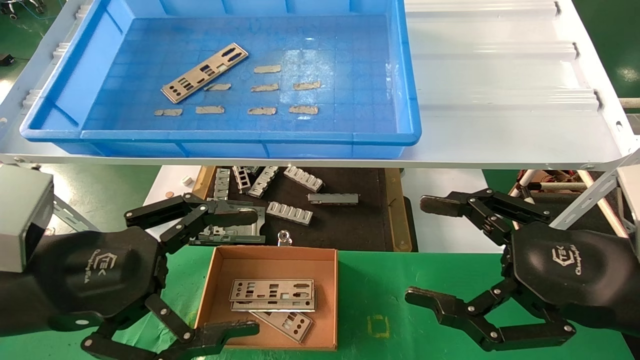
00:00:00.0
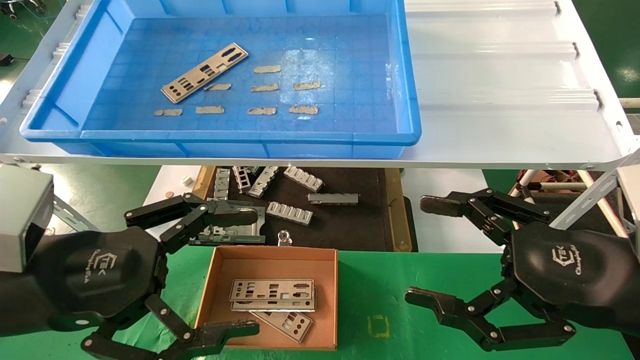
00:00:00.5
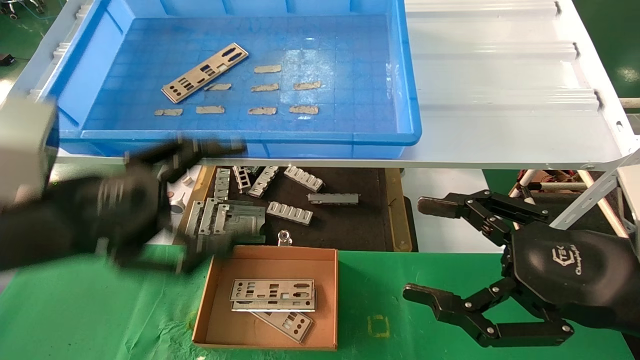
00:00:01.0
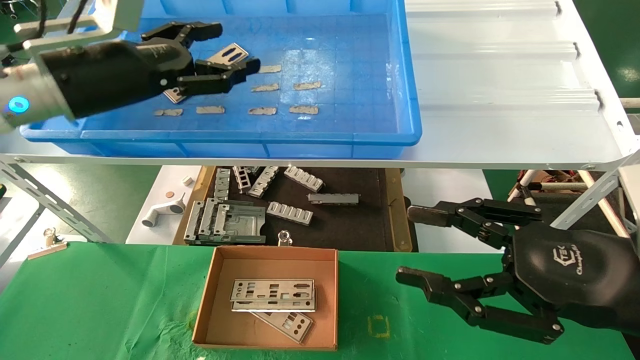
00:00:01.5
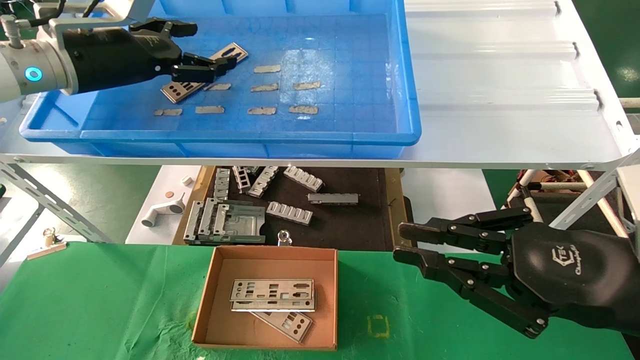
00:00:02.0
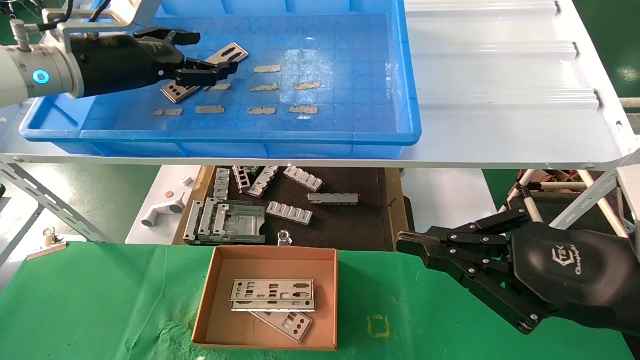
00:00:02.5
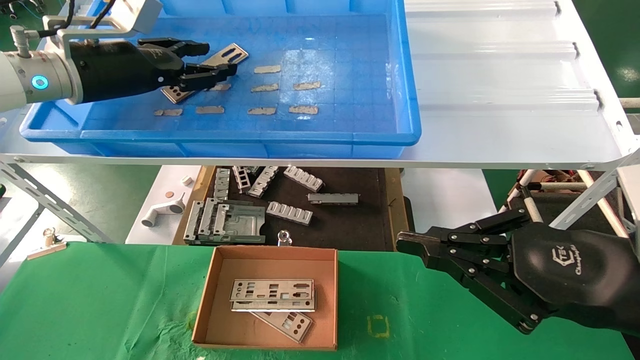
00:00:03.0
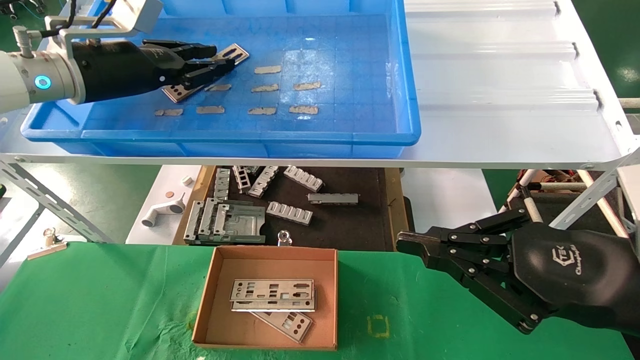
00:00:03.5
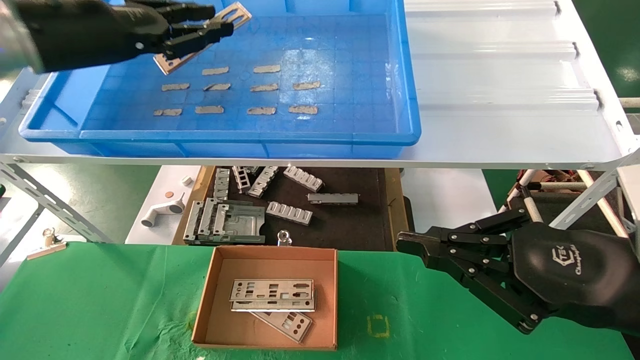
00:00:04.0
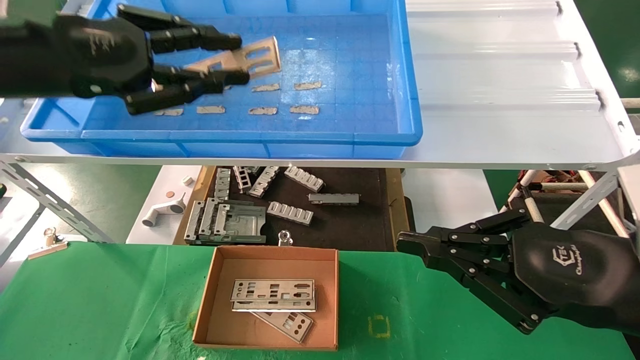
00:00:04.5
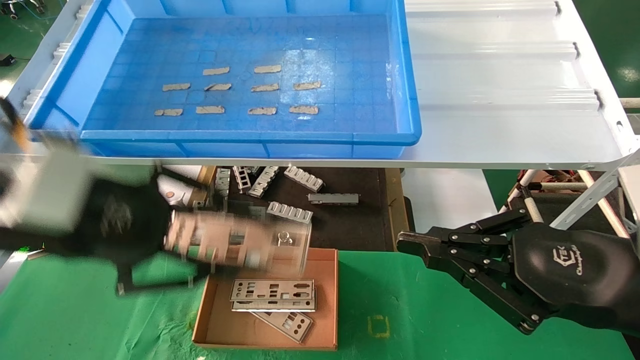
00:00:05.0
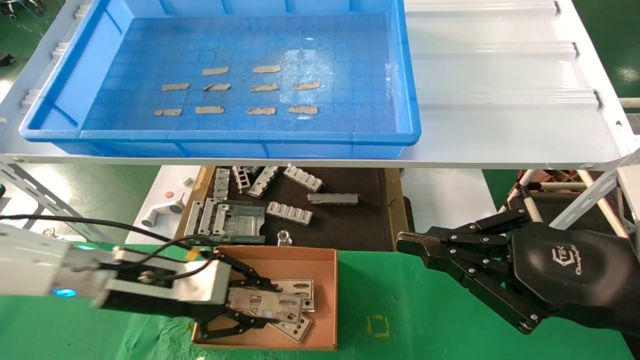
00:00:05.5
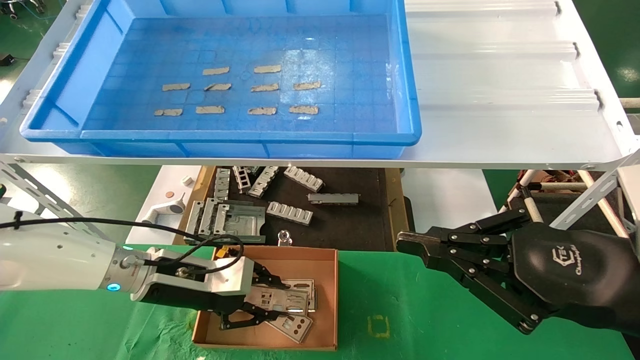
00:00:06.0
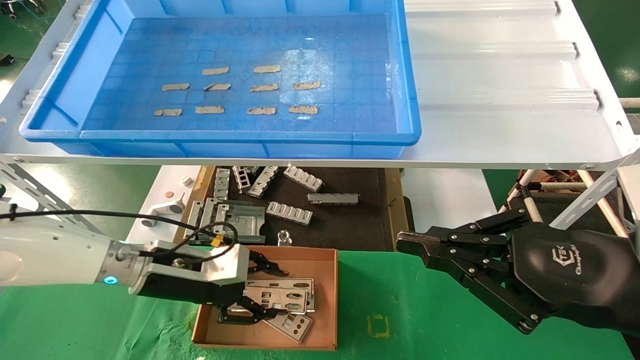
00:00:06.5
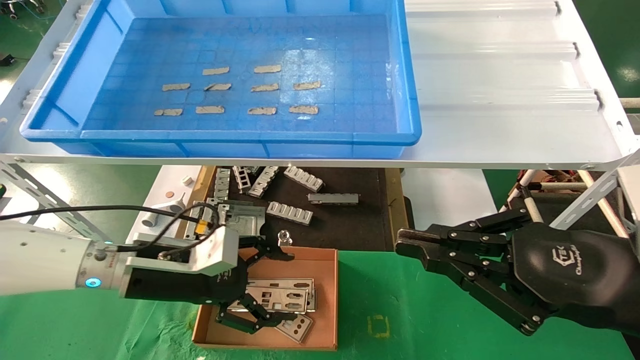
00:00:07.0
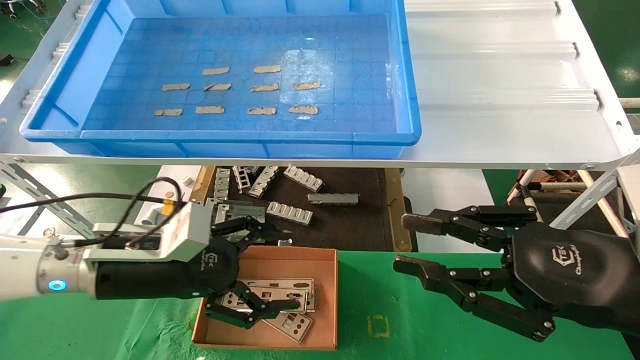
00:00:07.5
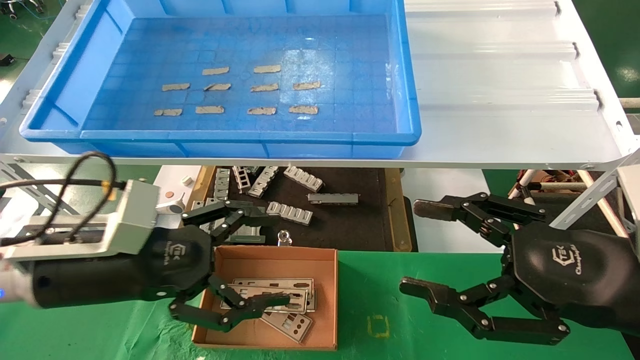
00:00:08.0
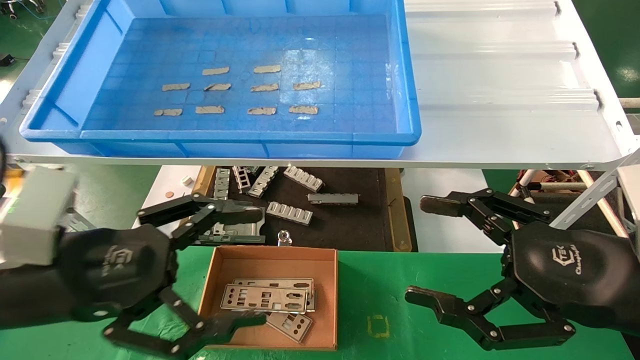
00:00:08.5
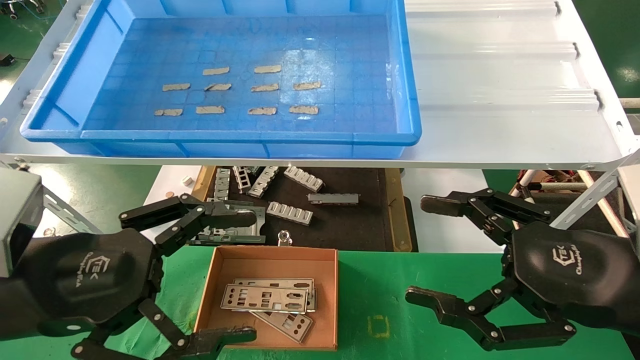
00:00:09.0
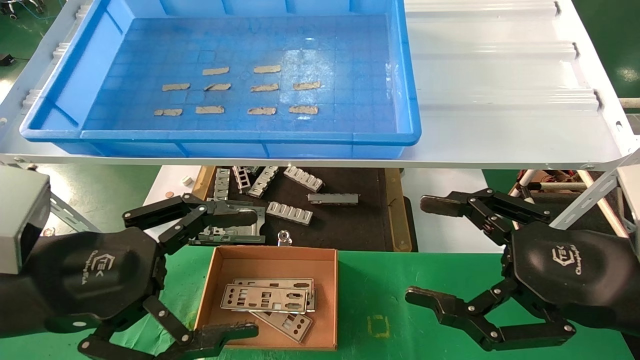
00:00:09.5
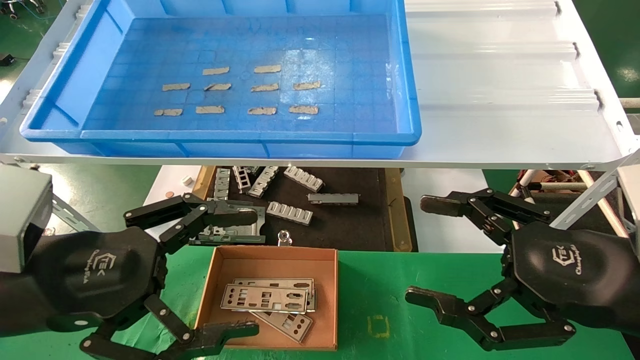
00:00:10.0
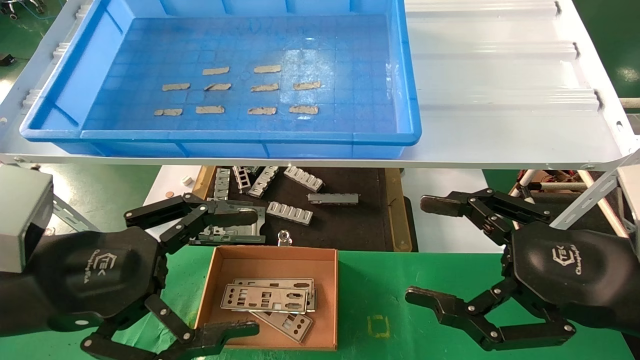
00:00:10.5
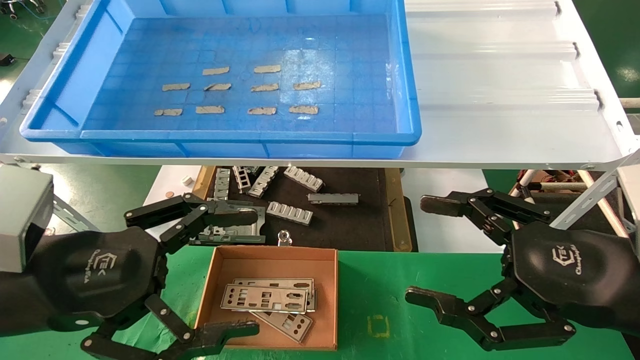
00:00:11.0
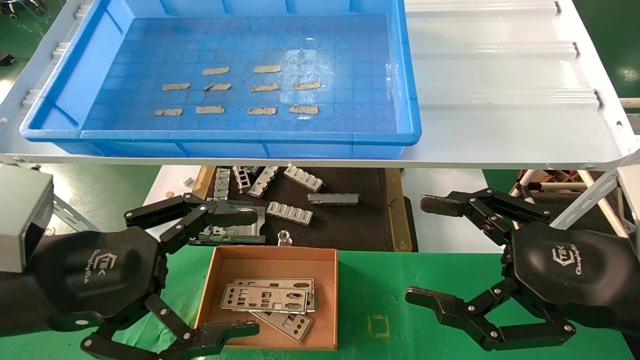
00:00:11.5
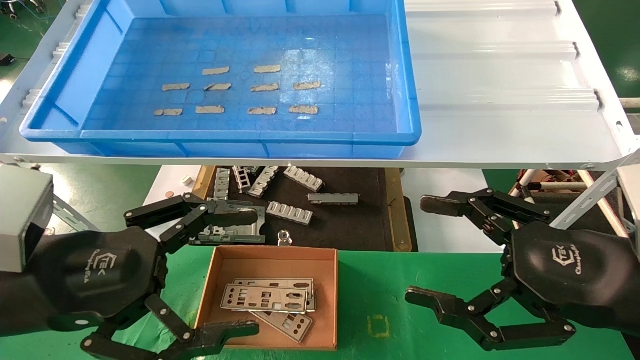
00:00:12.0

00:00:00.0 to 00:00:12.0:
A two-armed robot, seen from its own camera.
Task of the whole recording: pick up the parts on the tray and put them in the cardboard box.
Step, 00:00:01.5 to 00:00:03.5: Pick up the IO bracket from the container box.
Step, 00:00:04.0 to 00:00:06.0: Place the IO bracket into the ingredient slot.
00:00:00.0 to 00:00:02.0: The right gripper closes up. Meanwhile the left gripper is displaced forward and upward by some 25 cm.
00:00:02.0 to 00:00:04.0: The left gripper shifts by about 5 cm, and closes its fingers.
00:00:04.0 to 00:00:06.0: The left gripper travels downward by about 30 cm.
00:00:06.0 to 00:00:08.0: The left gripper is displaced backward and upward by some 15 cm, and opens. The right gripper opens.
00:00:08.0 to 00:00:10.0: The left gripper moves backward, some 5 cm.
00:00:10.0 to 00:00:12.0: Both grippers stay about where they are.

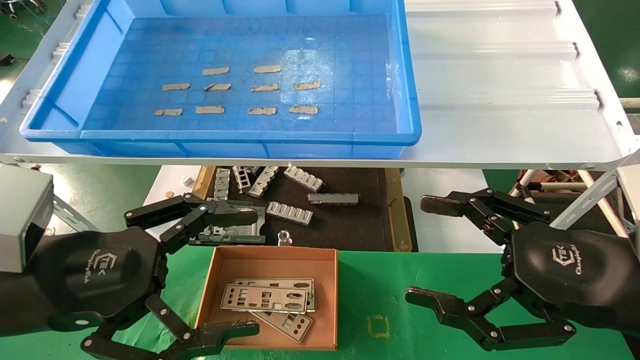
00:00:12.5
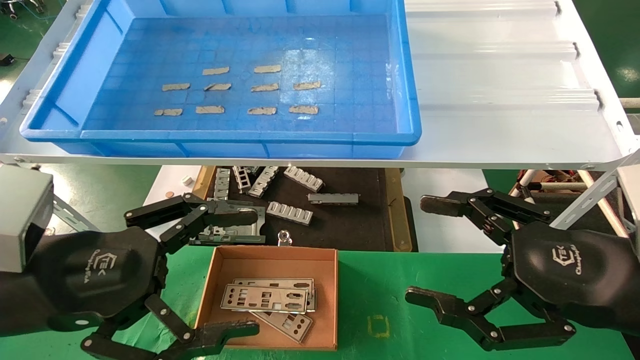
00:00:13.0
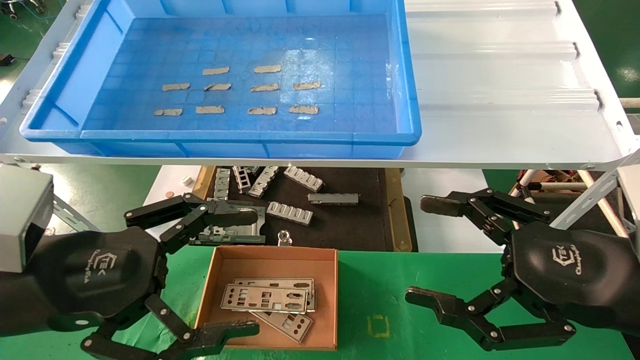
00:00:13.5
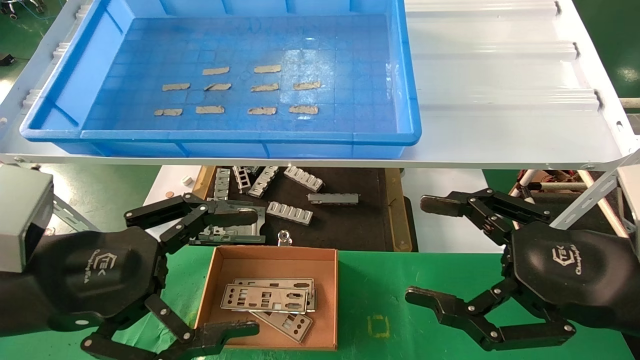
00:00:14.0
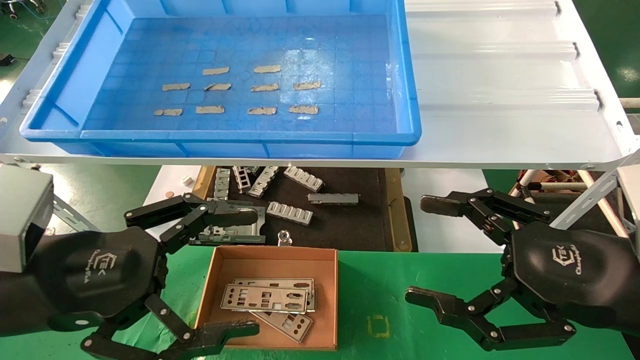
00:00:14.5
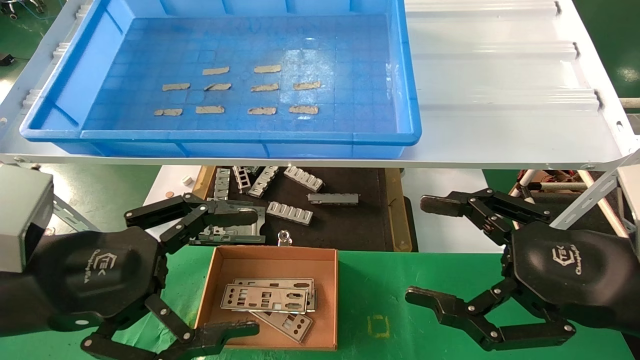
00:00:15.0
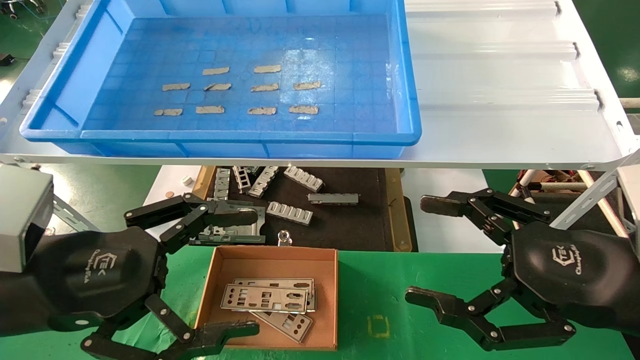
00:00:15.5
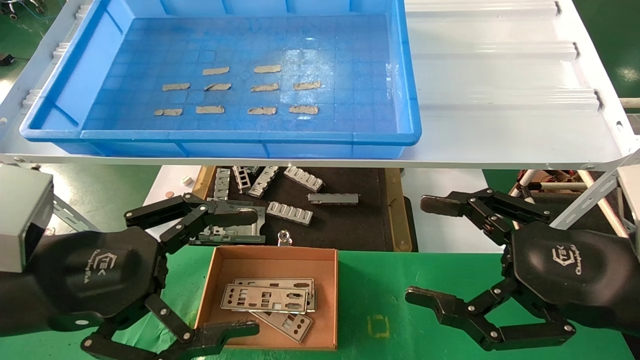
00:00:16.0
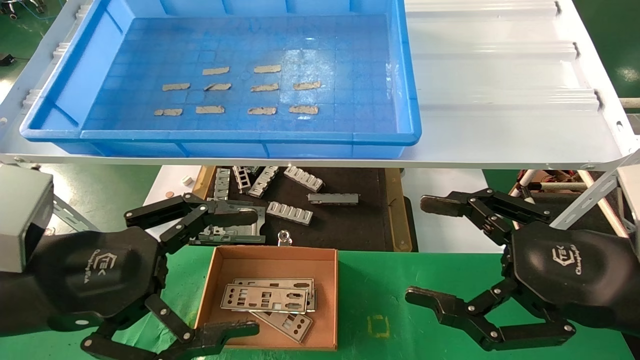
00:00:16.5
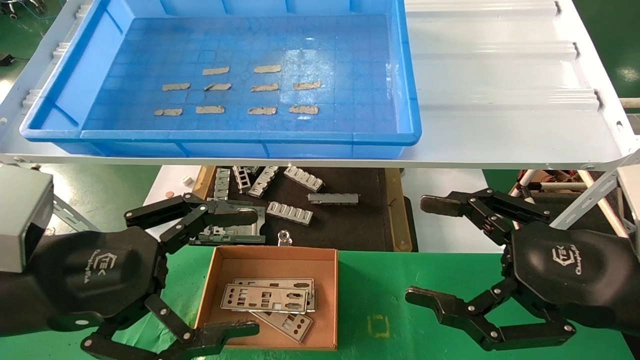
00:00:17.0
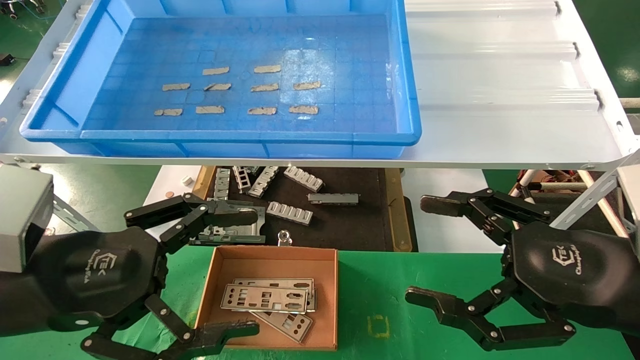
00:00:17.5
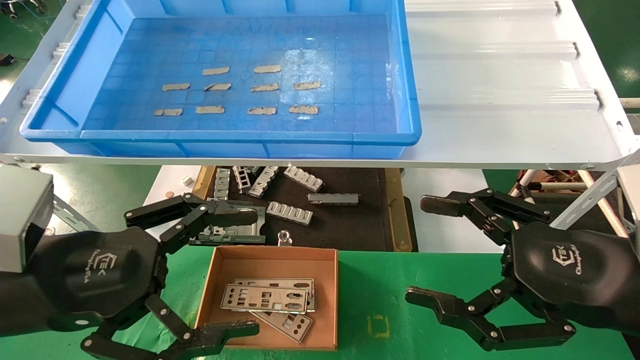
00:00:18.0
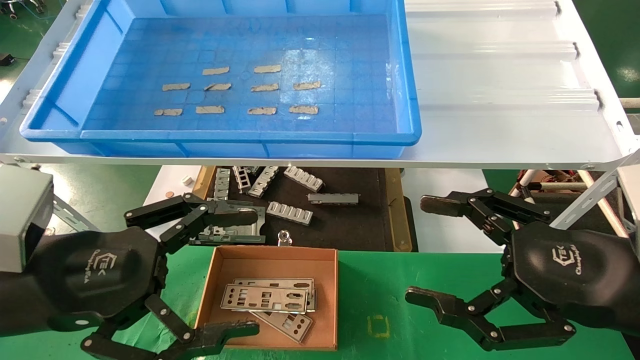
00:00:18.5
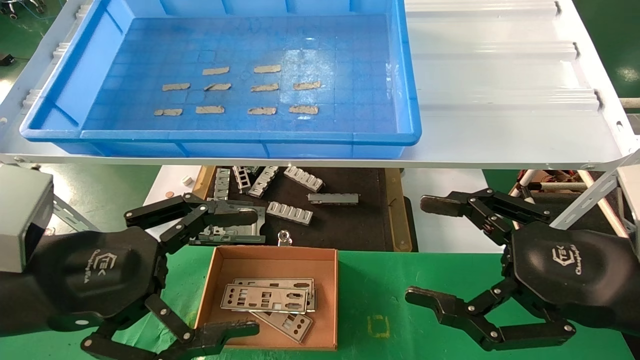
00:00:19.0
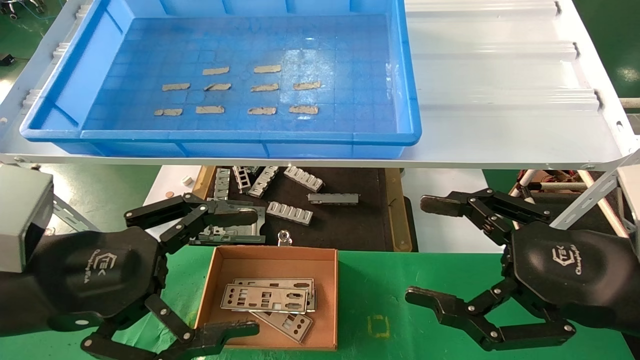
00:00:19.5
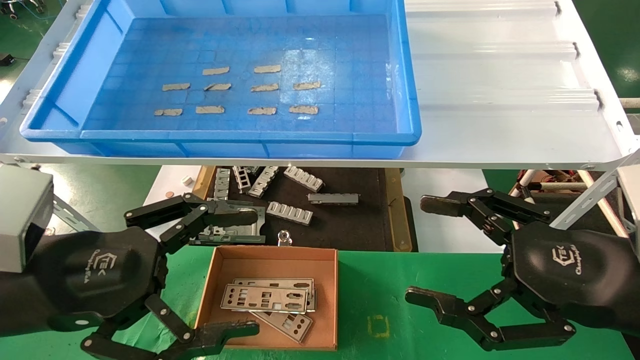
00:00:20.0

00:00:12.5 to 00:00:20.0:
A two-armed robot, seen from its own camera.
Task of the whole recording: pick up the parts on the tray and put them in the cardboard box.
00:00:12.5 to 00:00:20.0: Neither gripper changes place.
